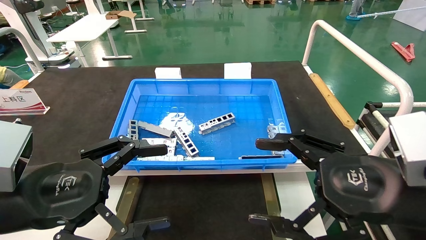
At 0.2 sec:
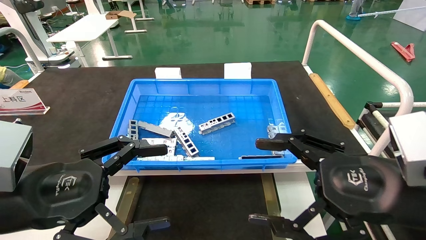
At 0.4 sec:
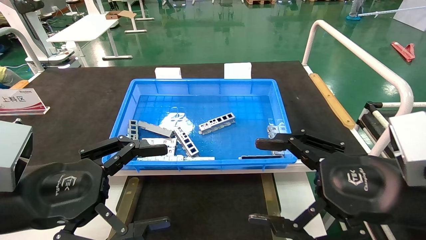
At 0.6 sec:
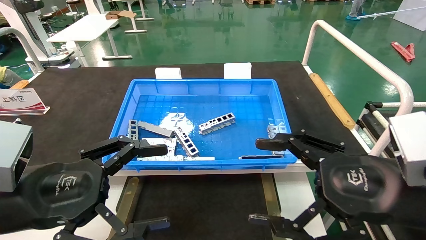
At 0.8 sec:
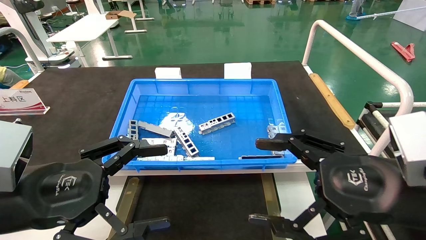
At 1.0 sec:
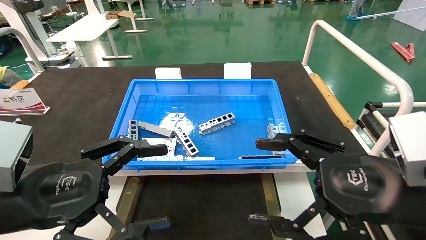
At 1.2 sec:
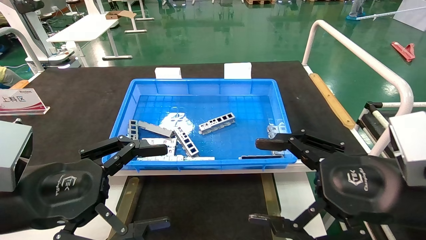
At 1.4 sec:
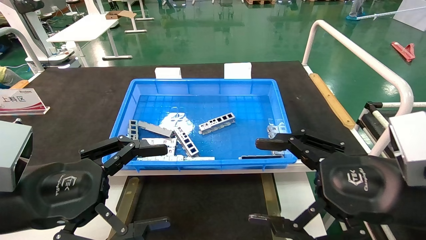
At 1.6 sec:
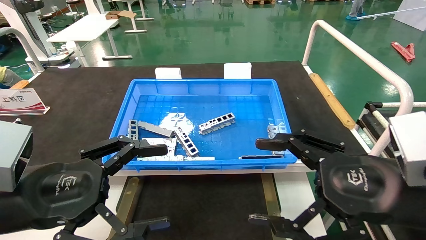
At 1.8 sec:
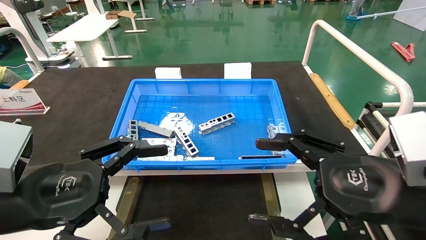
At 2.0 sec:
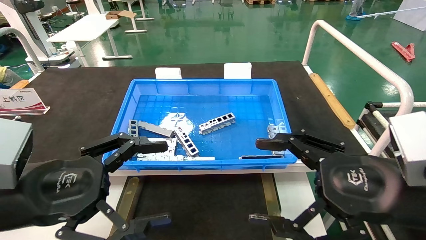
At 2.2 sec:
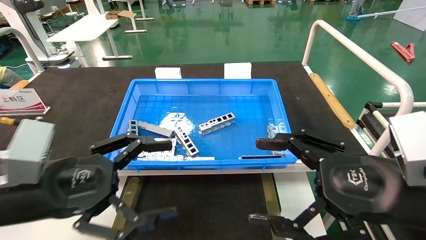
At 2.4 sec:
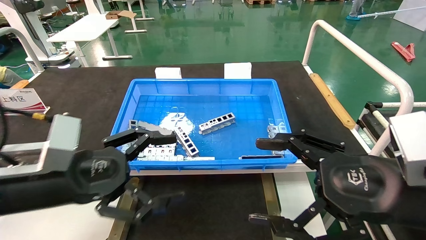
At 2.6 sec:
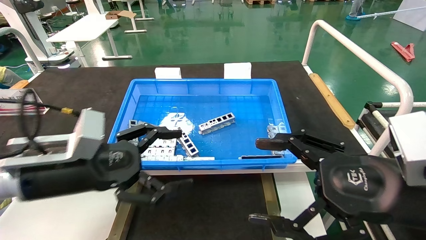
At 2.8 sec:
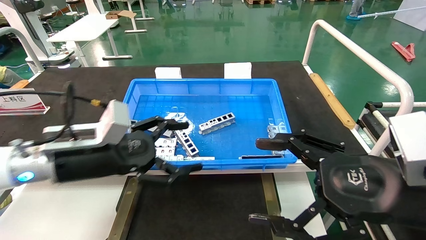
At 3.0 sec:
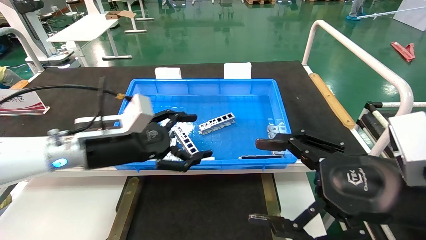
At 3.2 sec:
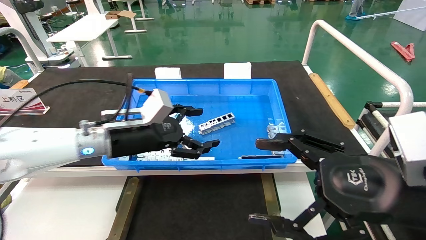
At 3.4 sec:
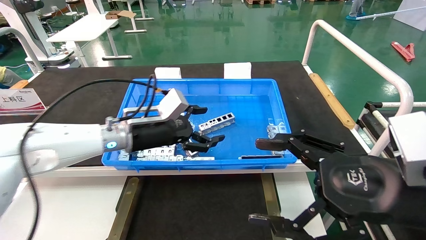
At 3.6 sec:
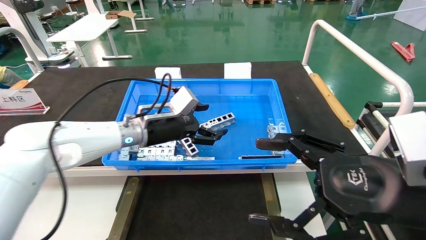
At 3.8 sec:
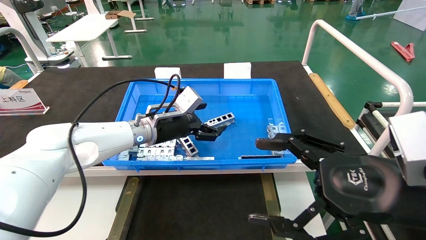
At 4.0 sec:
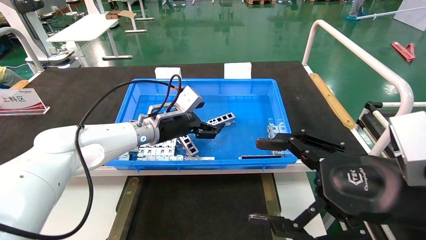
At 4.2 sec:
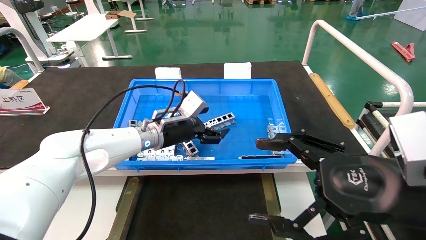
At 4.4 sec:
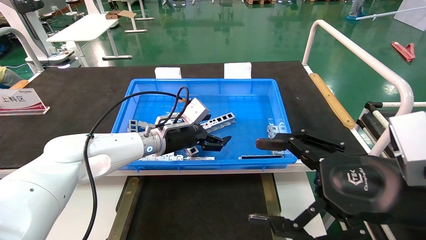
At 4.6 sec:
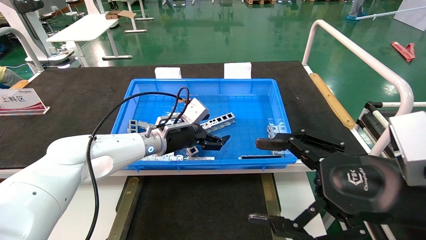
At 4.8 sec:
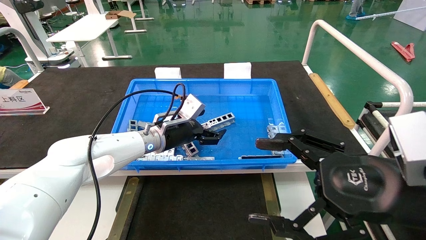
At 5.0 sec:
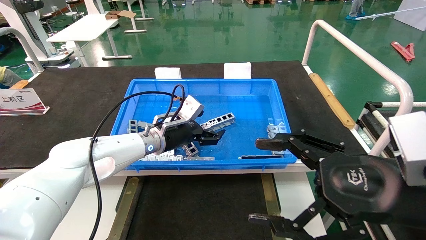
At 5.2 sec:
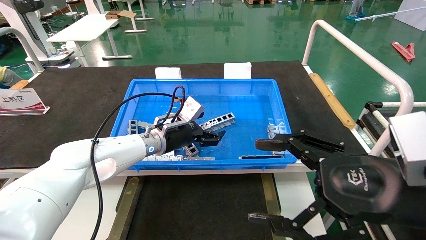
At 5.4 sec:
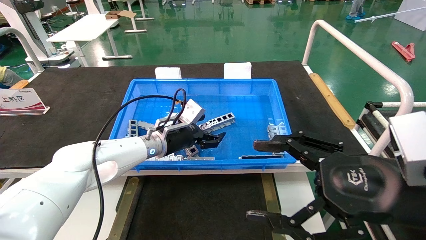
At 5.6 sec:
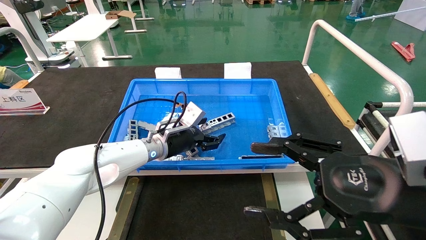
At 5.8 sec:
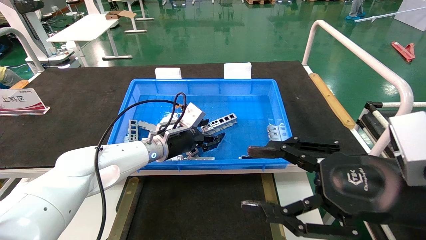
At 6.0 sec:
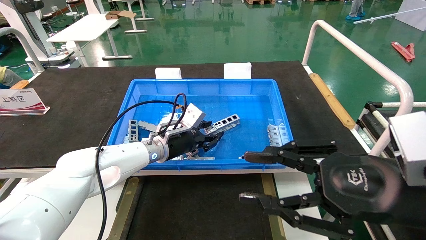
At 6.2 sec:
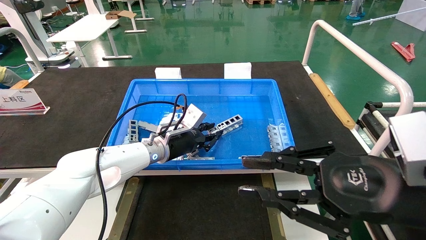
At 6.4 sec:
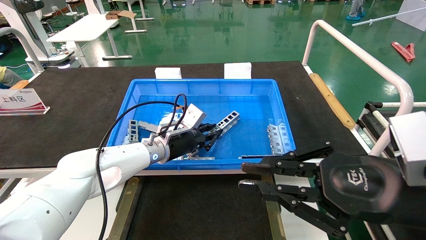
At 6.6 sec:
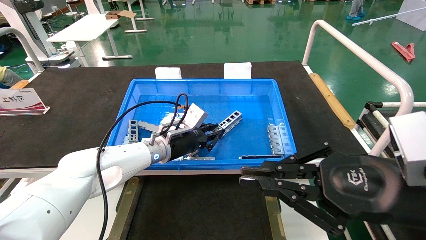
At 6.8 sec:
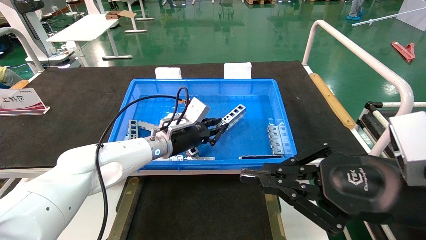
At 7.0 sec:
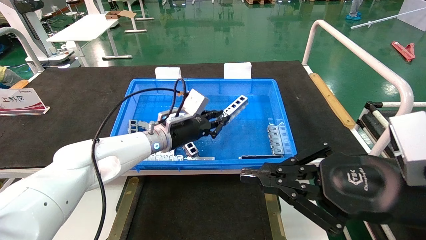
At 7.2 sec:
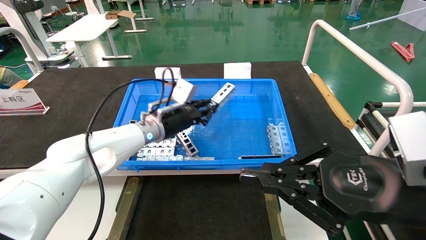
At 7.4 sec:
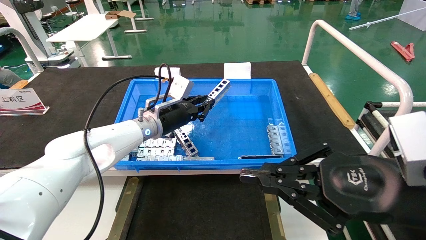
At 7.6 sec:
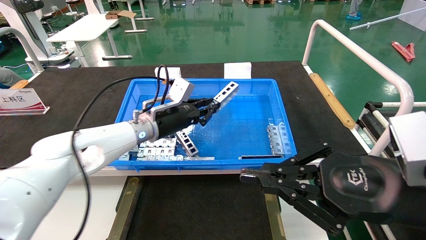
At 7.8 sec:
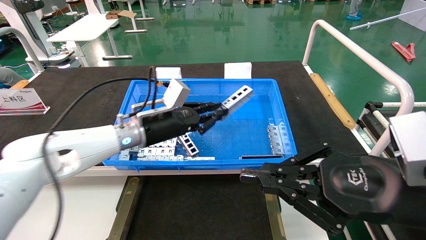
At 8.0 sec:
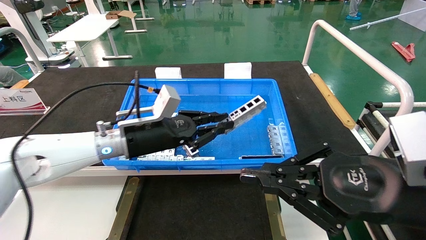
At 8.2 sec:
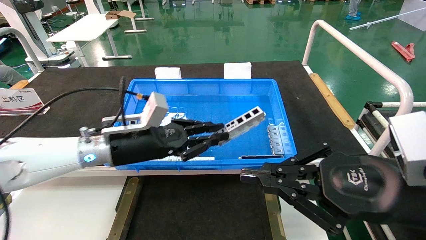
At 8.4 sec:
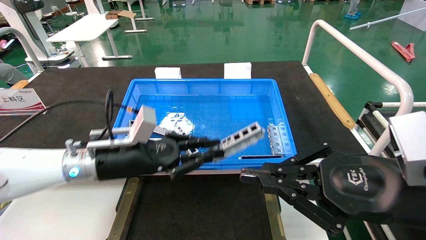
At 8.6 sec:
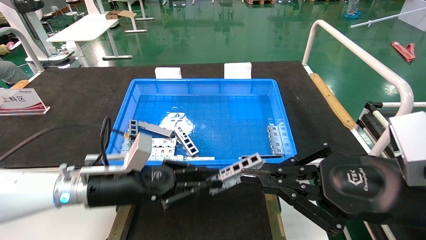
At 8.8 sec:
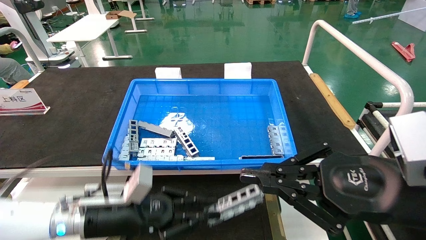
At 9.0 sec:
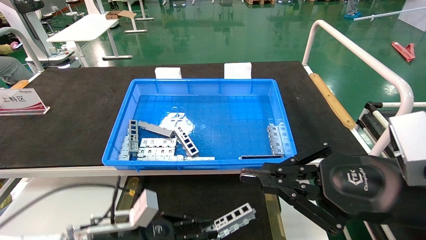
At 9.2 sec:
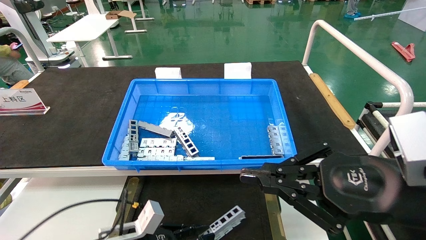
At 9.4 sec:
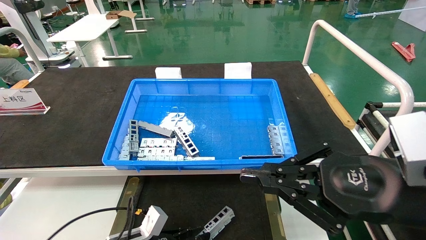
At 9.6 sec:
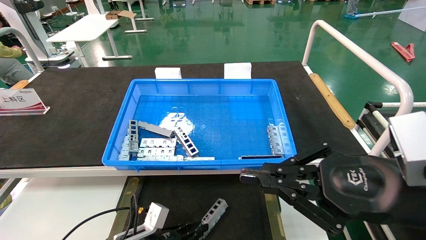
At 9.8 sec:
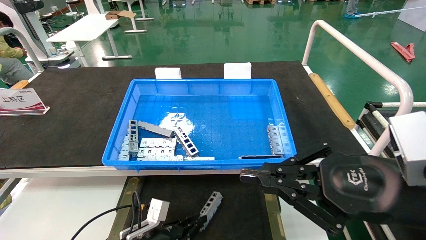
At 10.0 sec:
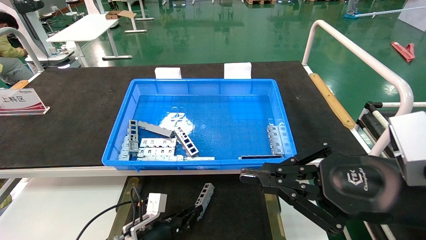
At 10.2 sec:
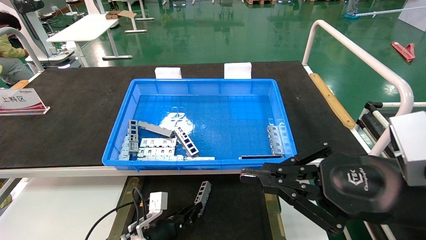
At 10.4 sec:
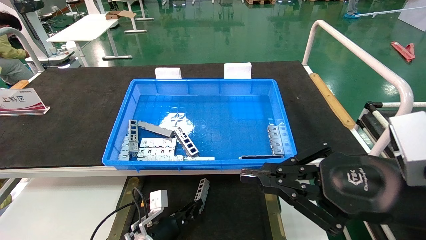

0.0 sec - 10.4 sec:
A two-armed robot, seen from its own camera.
Task of the whole recording: Grasp the part with one hand and place it on the black container.
Step, 2.2 sec - 7.2 sec: Pick up the front USB bracket from the feeding area.
0.0 sec - 1.4 sec: Both grippers stay about where they are.
1.4 sec - 3.0 sec: The left gripper goes about 15 cm forward.
3.0 sec - 4.4 sec: The left gripper moves forward and to the right, approximately 15 cm.
4.4 sec - 6.0 sec: The right gripper closes, while the left gripper closes up.
6.0 sec - 7.4 sec: The left gripper is displaced upward by approximately 5 cm, and closes its fingers, while the right gripper closes up.
7.4 sec - 9.0 sec: The left gripper moves backward, downward and to the left, approximately 25 cm.
9.0 sec - 10.4 sec: The left gripper heads downward, forward and to the right, covering roughly 15 cm.

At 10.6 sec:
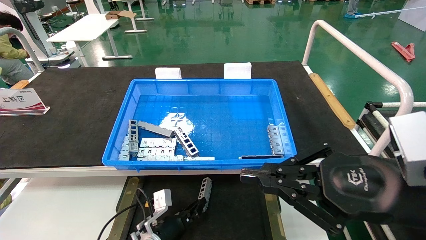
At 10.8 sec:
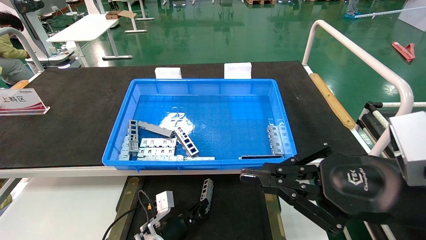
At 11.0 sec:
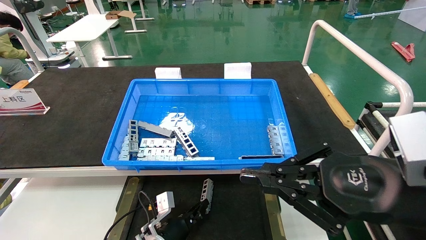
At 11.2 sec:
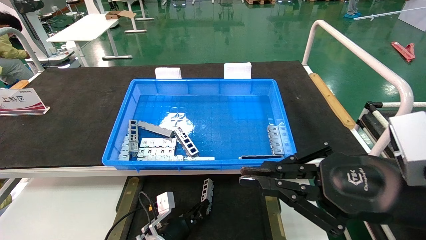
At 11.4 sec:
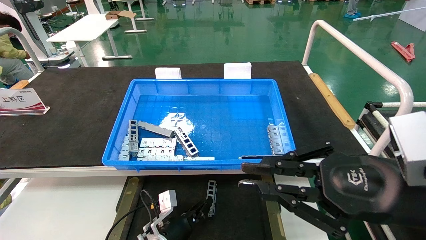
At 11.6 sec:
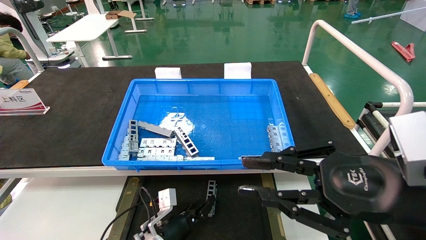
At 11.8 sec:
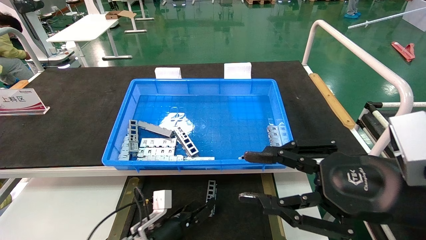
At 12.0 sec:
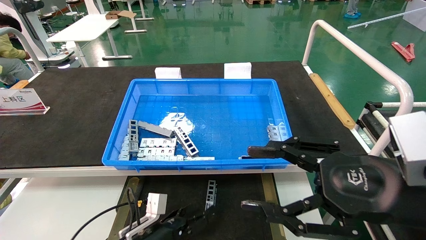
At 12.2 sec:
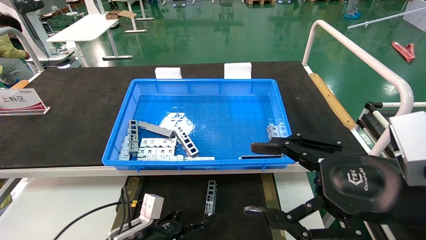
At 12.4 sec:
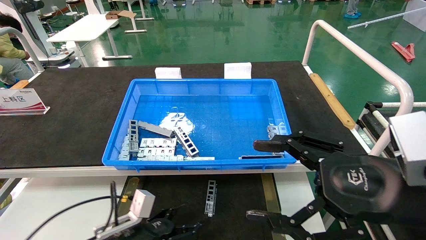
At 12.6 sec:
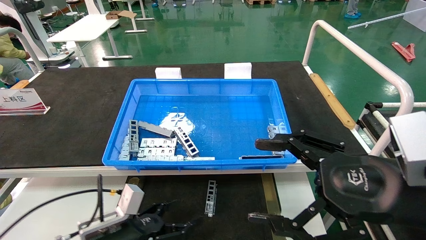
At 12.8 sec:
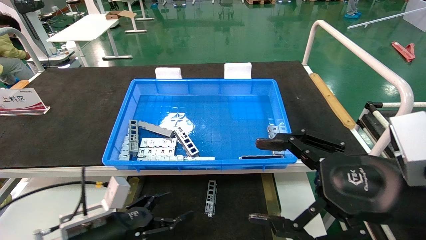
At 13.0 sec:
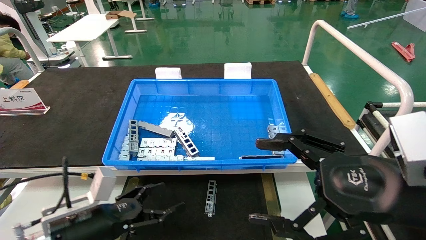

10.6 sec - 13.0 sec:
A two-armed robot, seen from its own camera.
Task of the whole recording: Grasp the part with one hand and place it on the black container.
10.6 sec - 11.8 sec: The left gripper opens up.
11.8 sec - 13.0 sec: The right gripper opens its fingers. Meanwhile the left gripper goes about 20 cm upward, to the left and backward, and opens its fingers.
